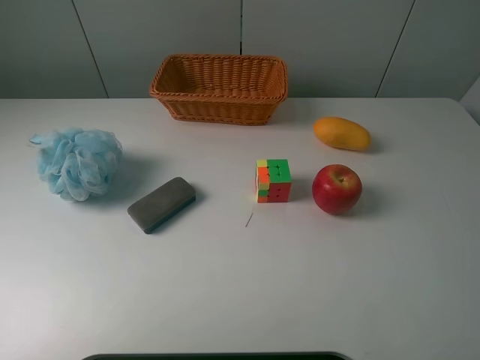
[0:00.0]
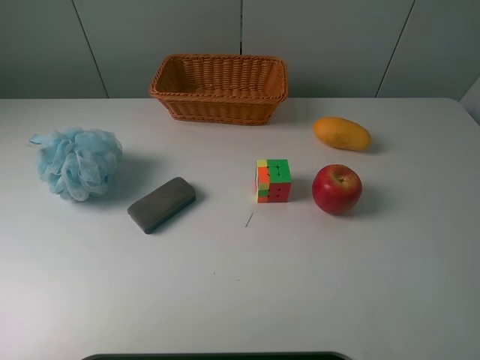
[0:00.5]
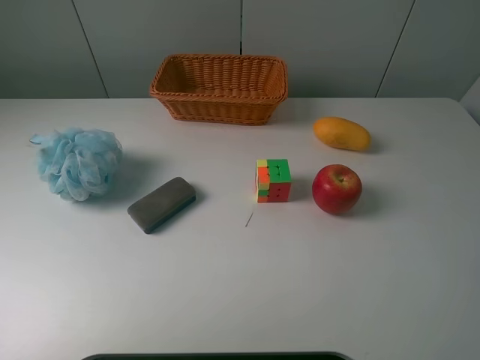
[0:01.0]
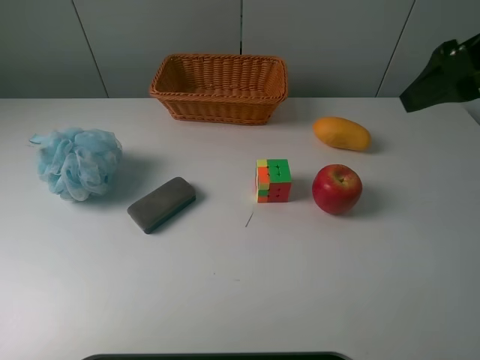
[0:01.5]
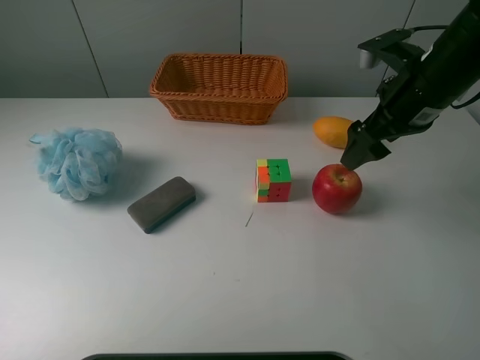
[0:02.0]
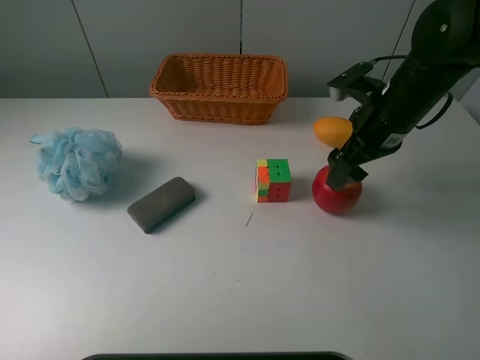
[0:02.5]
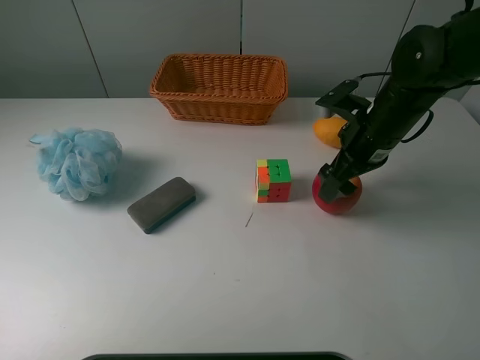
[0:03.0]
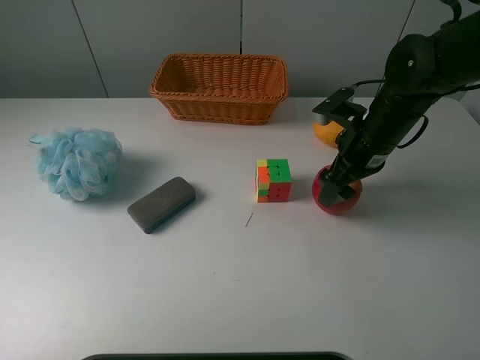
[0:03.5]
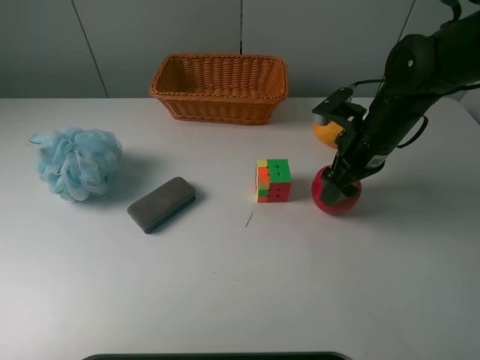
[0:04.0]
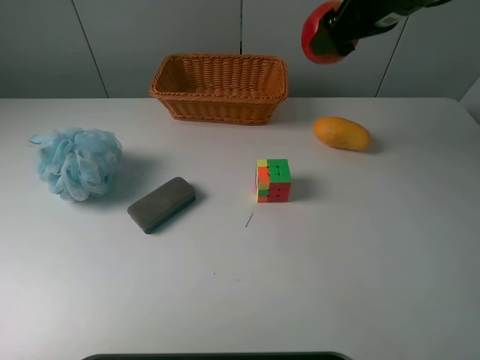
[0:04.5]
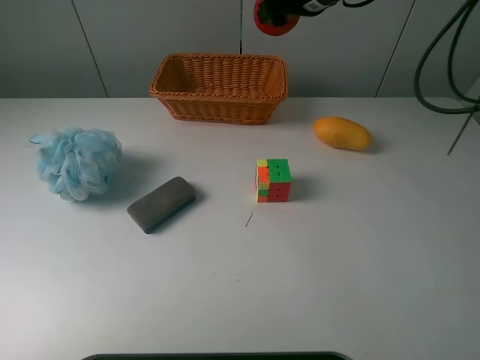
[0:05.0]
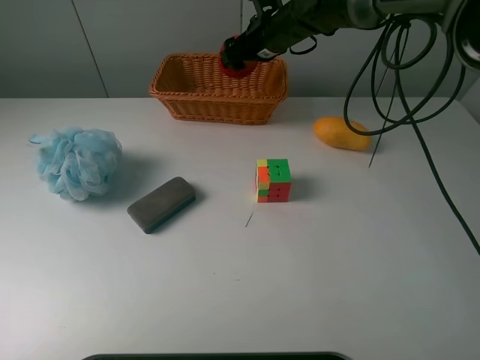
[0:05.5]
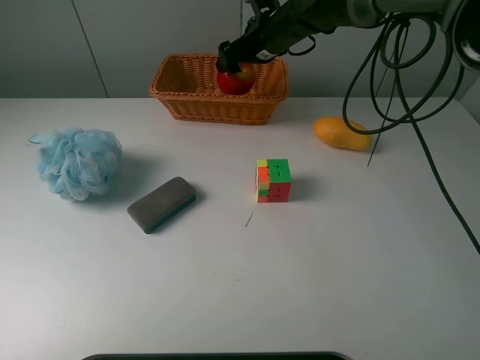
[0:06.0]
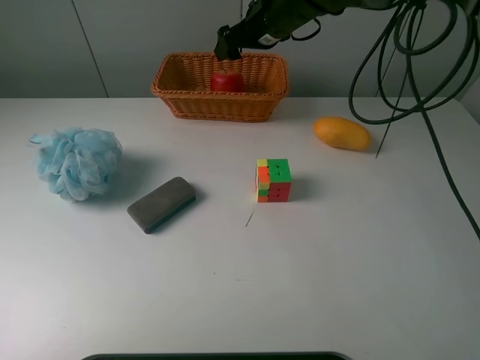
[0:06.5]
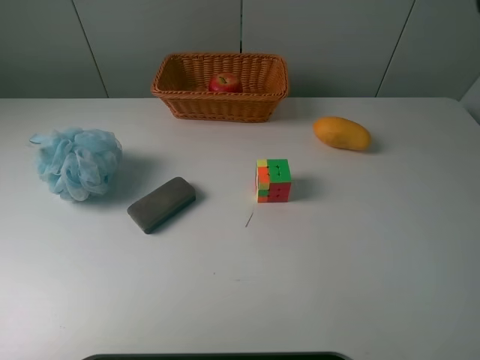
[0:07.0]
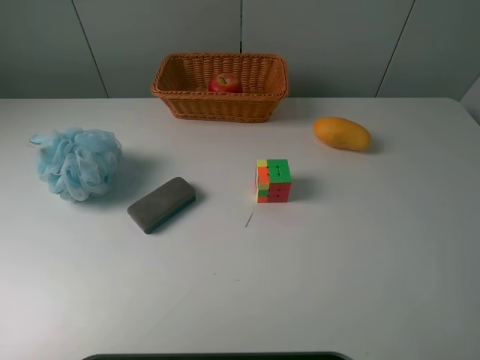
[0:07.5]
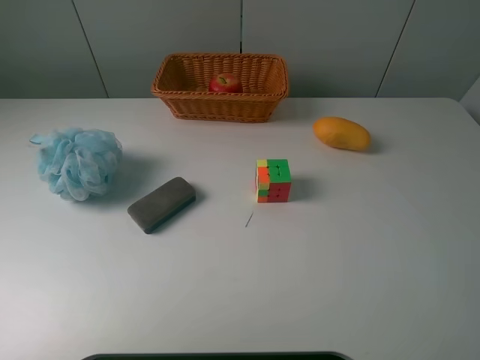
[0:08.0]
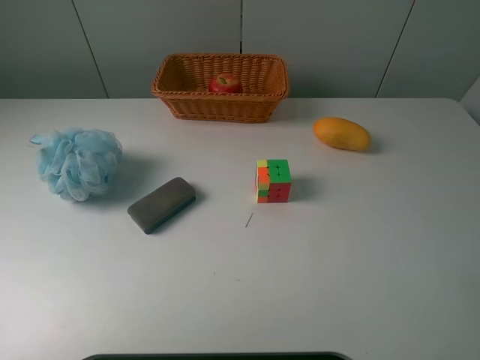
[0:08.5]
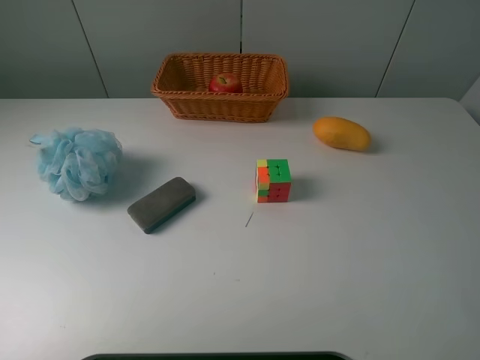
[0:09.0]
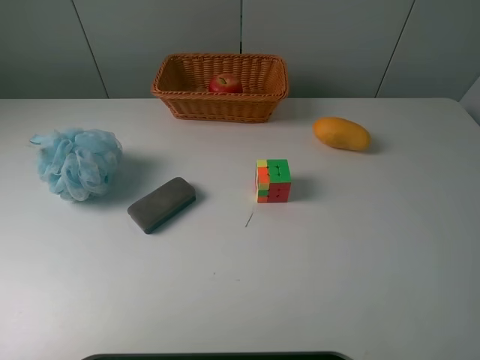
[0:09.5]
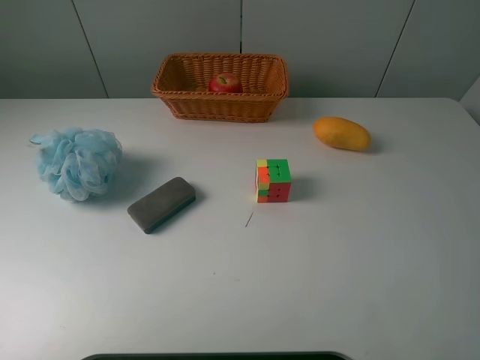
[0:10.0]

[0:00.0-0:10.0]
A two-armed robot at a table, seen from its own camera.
Task of the whole recording: use a picker to grab the item closest to the cube and place it in the basket.
Step, 0:00.0 to 0:03.5: Grasp the apple with the right gripper.
Step, 0:04.0 to 0:06.0: Place the apple into the basket with the right gripper.
0:00.0 to 0:02.0: The right gripper shifts approximately 30 cm forward.
0:02.0 to 0:04.0: The right gripper travels downward by some 10 cm, and closes up.
0:04.0 to 0:06.0: The right gripper moves forward and to the left, roughly 20 cm, and opens up.
0:06.0 to 0:08.0: The right gripper moves backward, upward and to the right, approximately 50 cm.

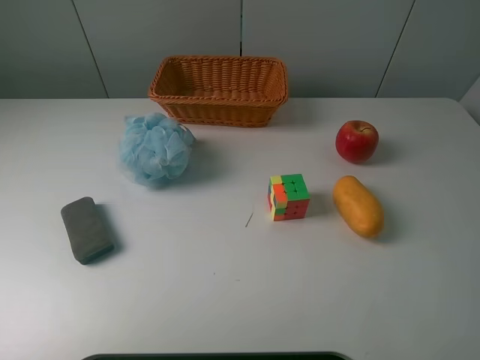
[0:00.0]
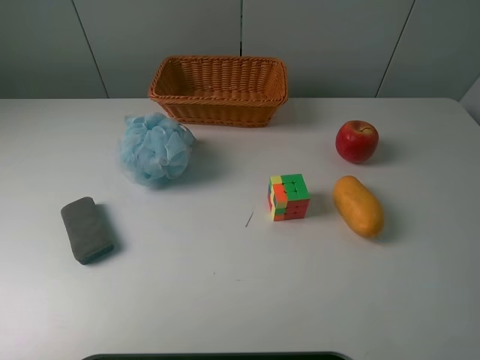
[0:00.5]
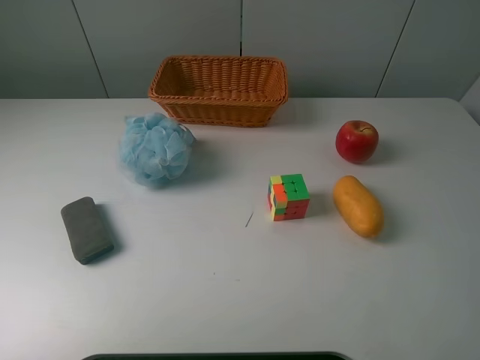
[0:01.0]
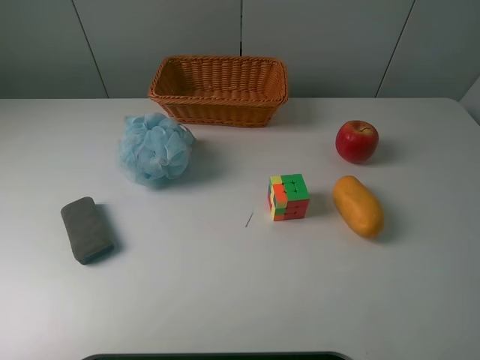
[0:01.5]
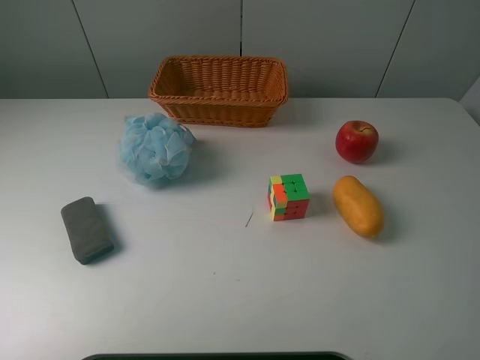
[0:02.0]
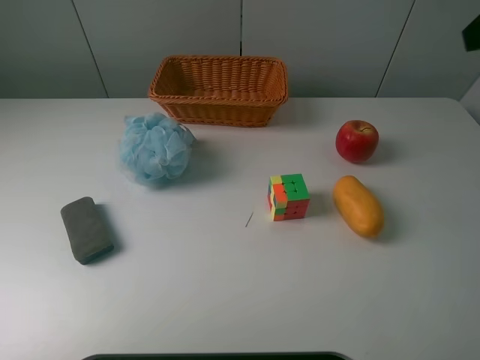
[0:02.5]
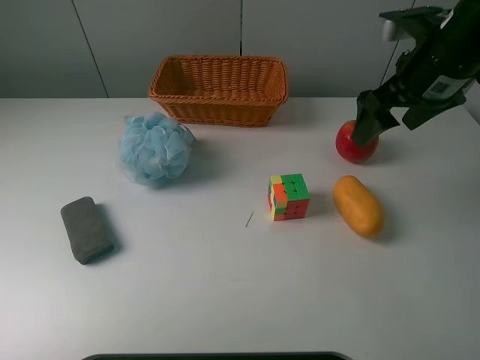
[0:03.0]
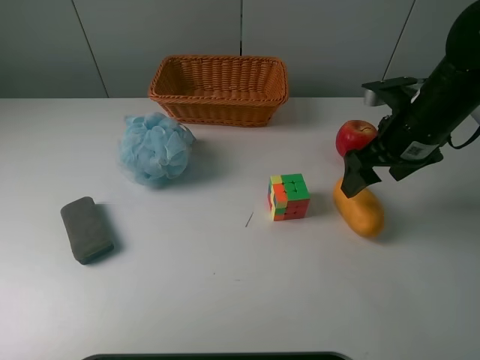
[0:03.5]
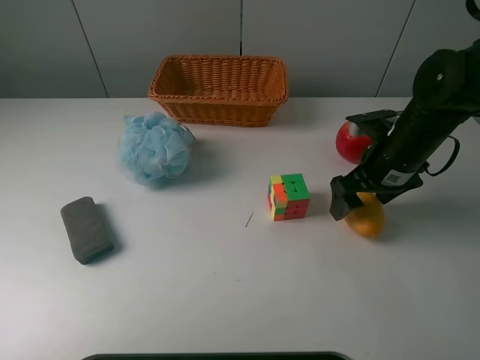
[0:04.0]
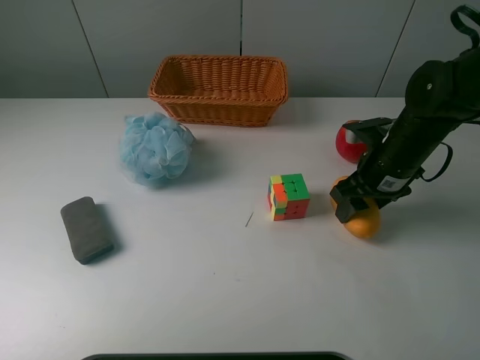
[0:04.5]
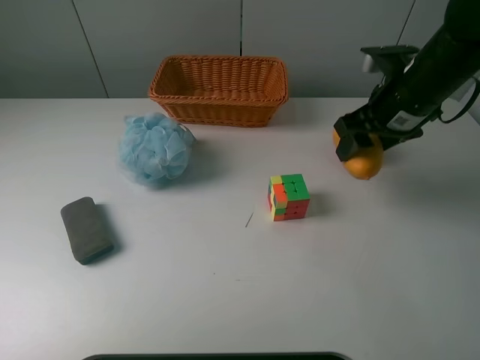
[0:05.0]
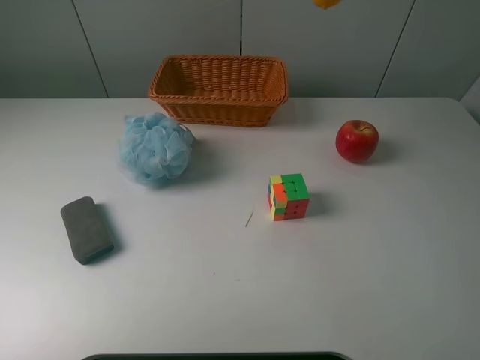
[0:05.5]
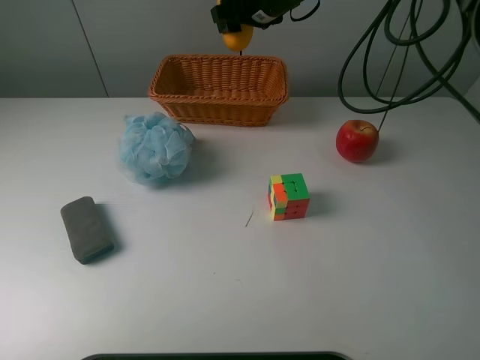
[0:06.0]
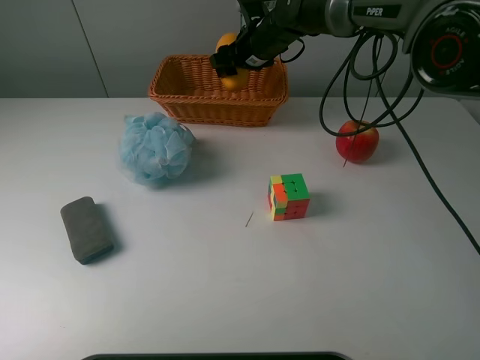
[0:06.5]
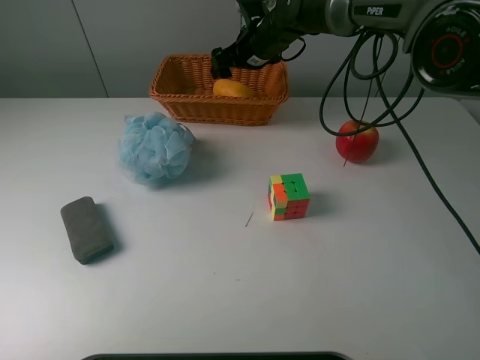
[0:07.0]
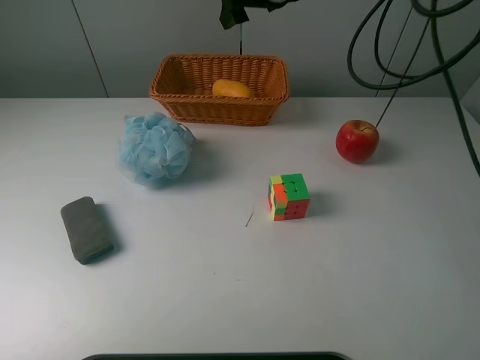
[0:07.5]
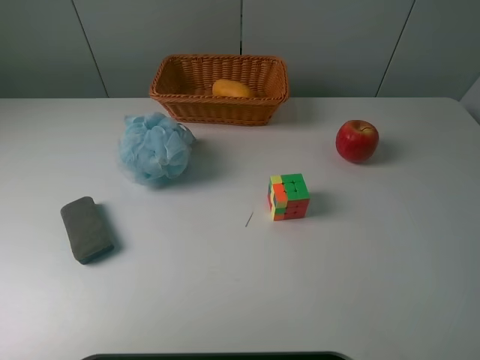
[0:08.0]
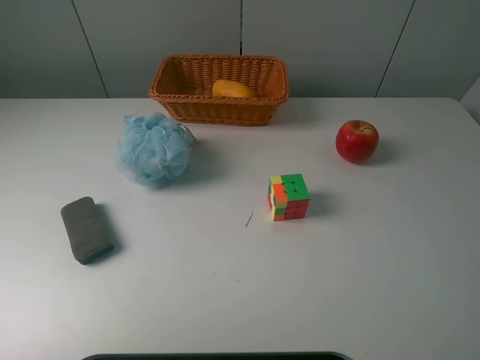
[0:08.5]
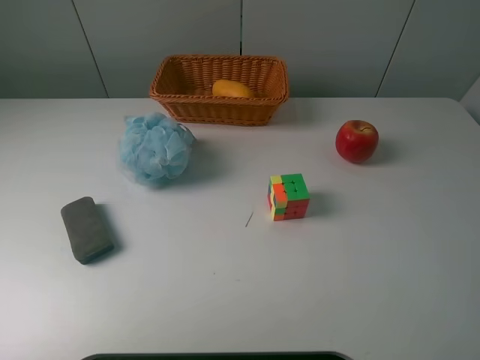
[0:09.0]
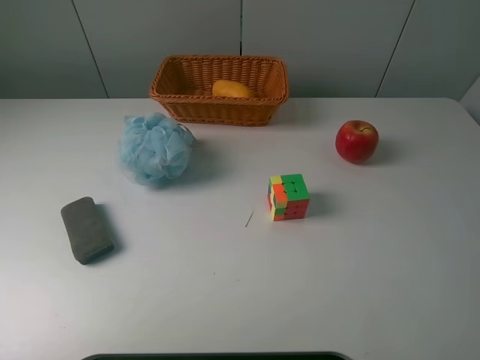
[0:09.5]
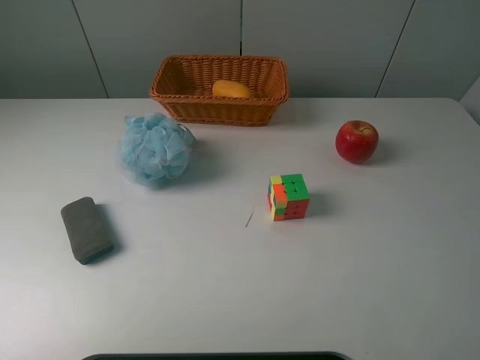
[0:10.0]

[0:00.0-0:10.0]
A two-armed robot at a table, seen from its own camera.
Task of the whole recording: use a picker to grab the item closest to the cube and place it in the basket.
Step, 0:00.0 to 0:04.5: Grasp the mango with the right gripper.
Step, 0:05.0 to 0:07.0: Place the mango into the basket with the right gripper.
0:02.0 to 0:04.0: The right gripper travels forward and downward by roughly 35 cm.
0:04.0 to 0:06.0: The right gripper goes approximately 30 cm forward, to the left and upward, and closes up.
0:06.0 to 0:08.0: The right gripper shifts some 30 cm upward, to the right and backward, and opens up.
